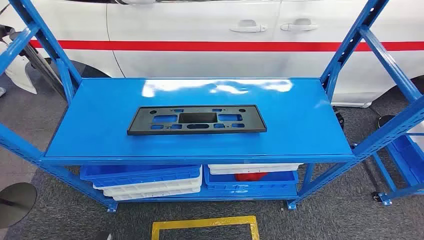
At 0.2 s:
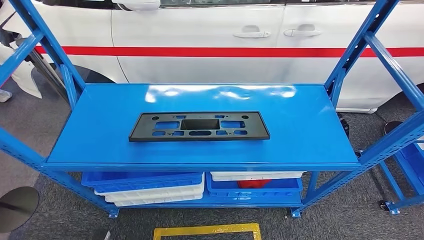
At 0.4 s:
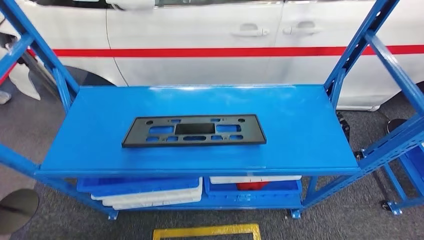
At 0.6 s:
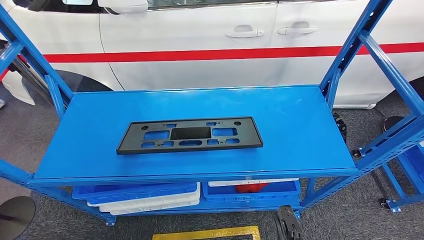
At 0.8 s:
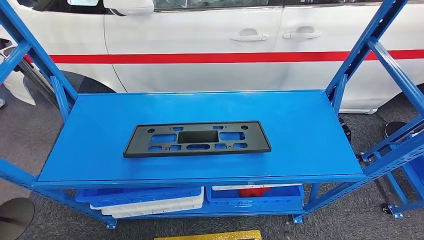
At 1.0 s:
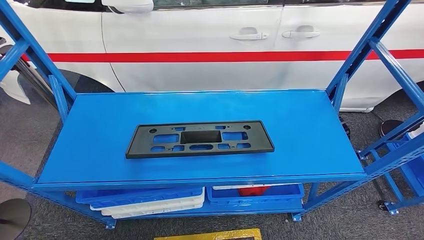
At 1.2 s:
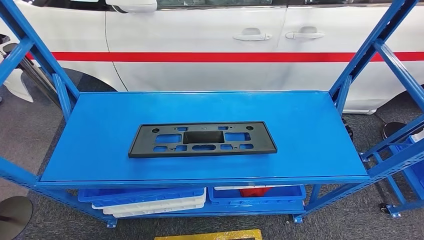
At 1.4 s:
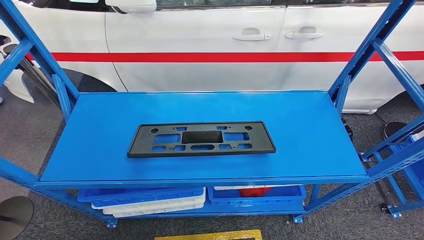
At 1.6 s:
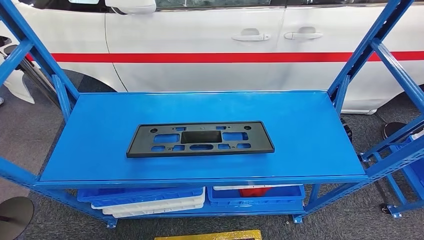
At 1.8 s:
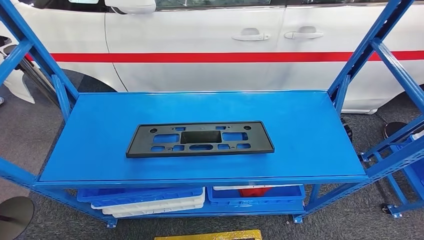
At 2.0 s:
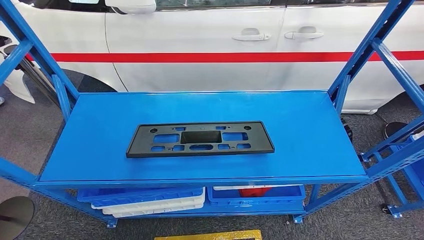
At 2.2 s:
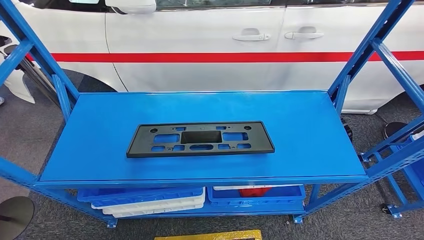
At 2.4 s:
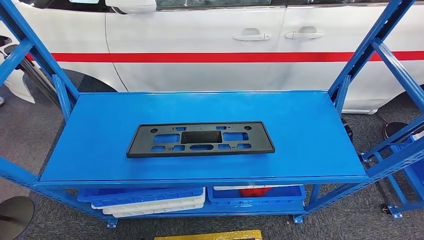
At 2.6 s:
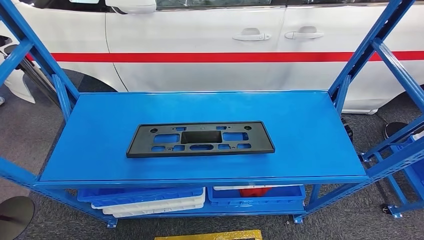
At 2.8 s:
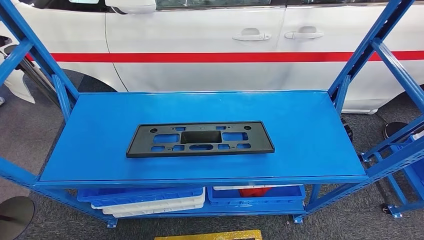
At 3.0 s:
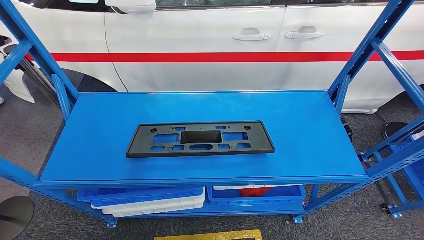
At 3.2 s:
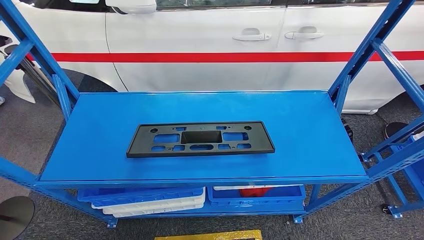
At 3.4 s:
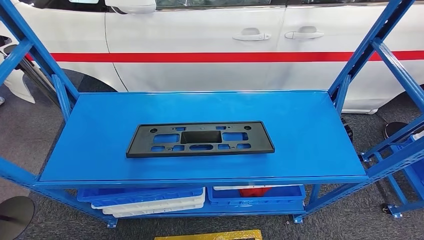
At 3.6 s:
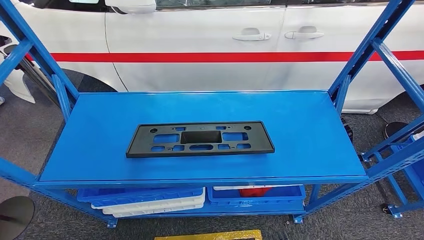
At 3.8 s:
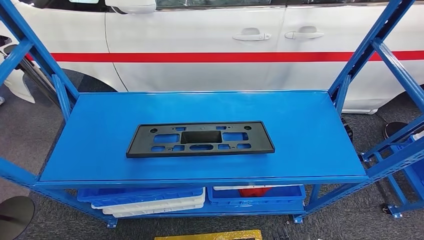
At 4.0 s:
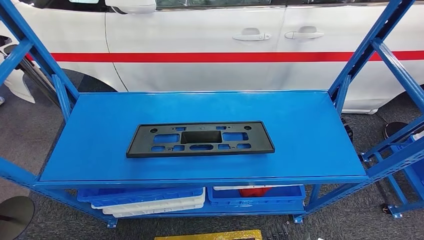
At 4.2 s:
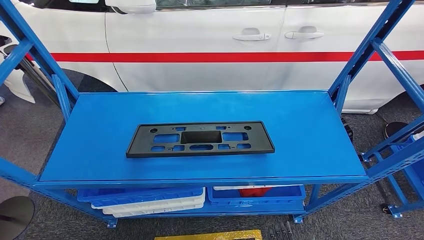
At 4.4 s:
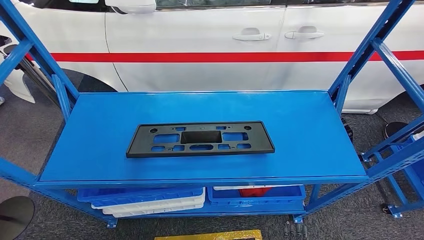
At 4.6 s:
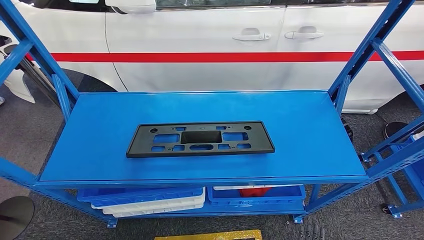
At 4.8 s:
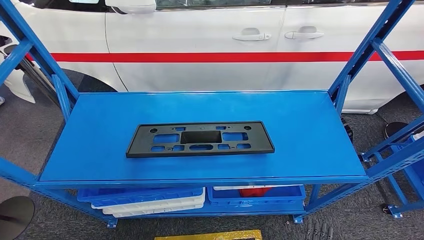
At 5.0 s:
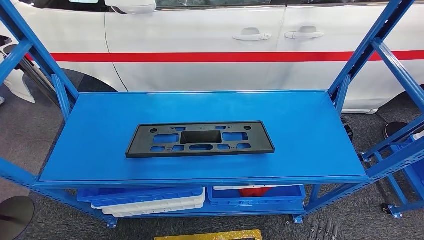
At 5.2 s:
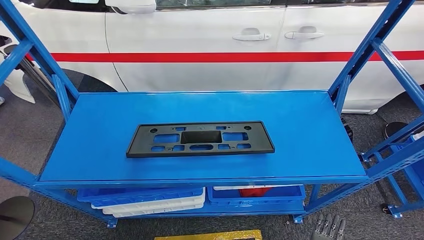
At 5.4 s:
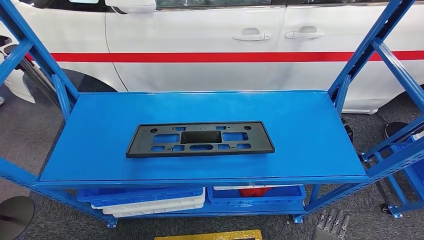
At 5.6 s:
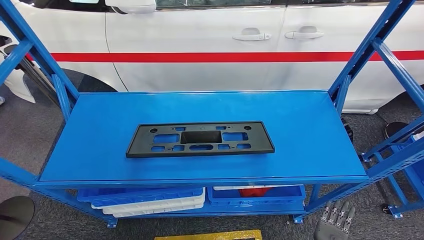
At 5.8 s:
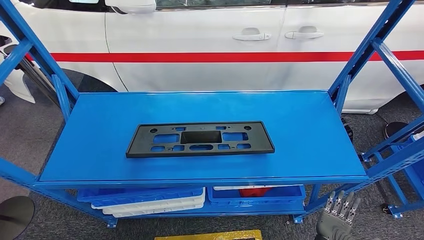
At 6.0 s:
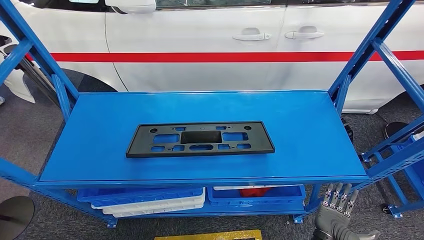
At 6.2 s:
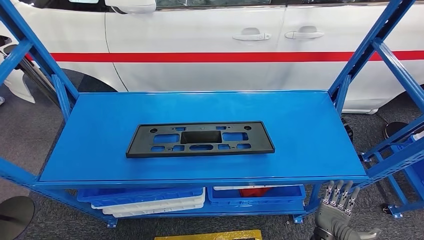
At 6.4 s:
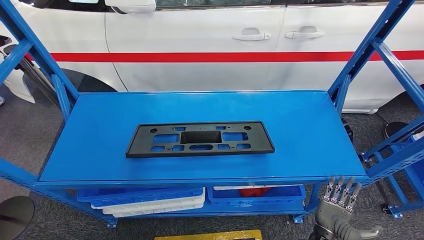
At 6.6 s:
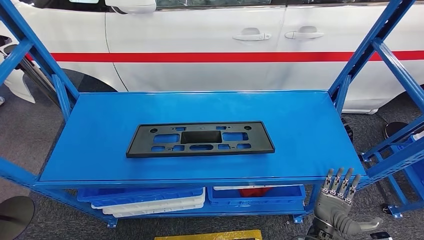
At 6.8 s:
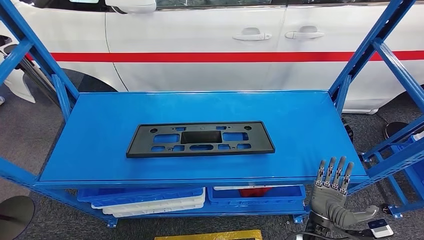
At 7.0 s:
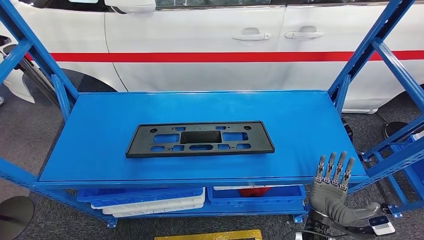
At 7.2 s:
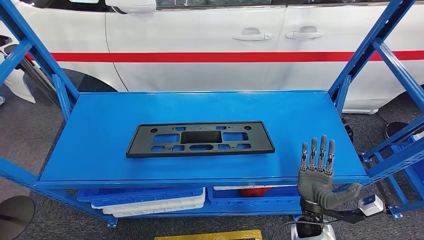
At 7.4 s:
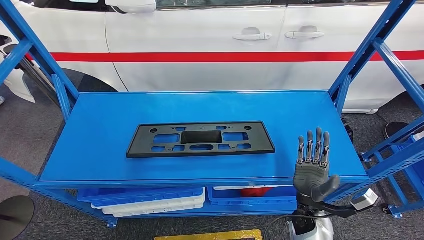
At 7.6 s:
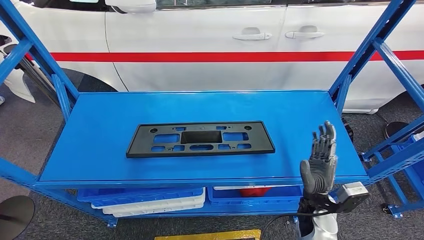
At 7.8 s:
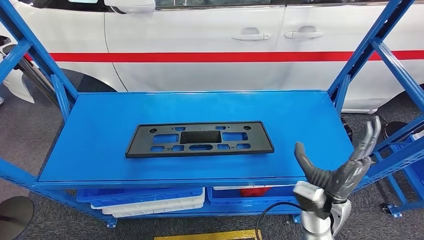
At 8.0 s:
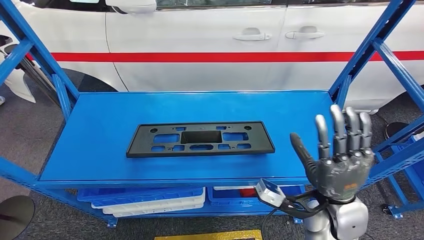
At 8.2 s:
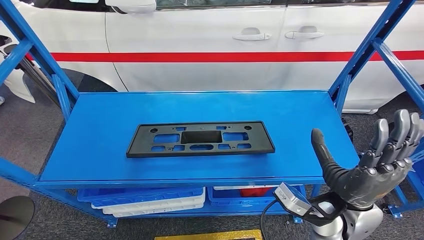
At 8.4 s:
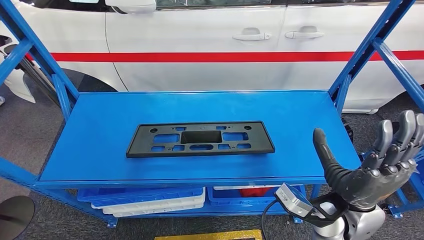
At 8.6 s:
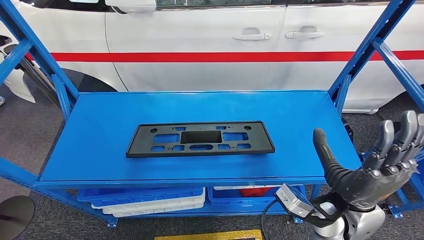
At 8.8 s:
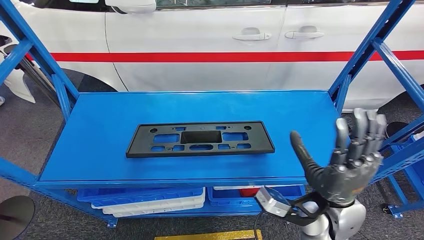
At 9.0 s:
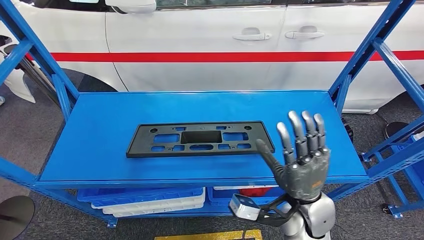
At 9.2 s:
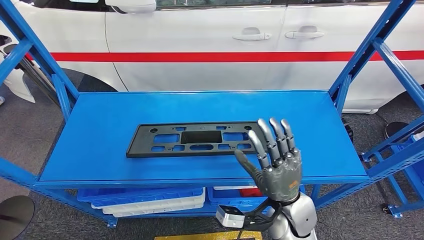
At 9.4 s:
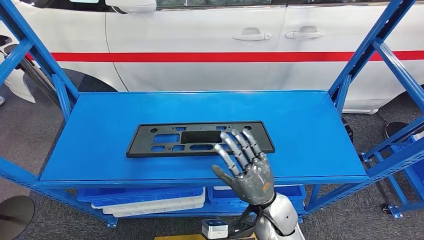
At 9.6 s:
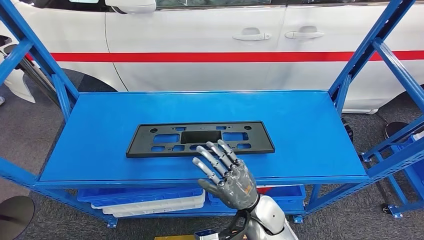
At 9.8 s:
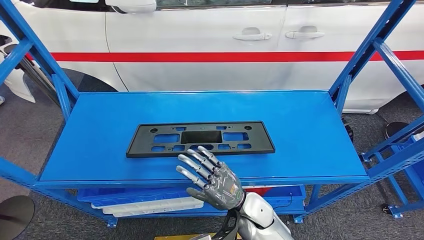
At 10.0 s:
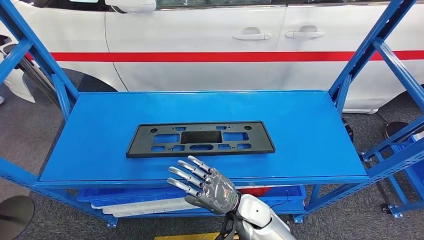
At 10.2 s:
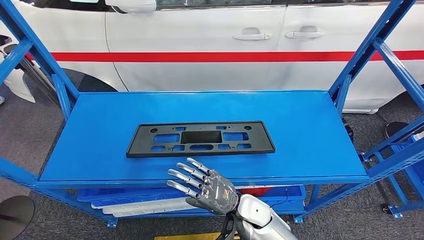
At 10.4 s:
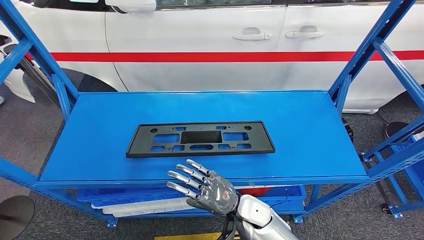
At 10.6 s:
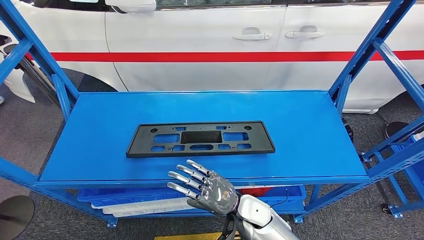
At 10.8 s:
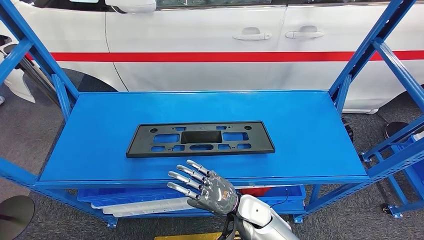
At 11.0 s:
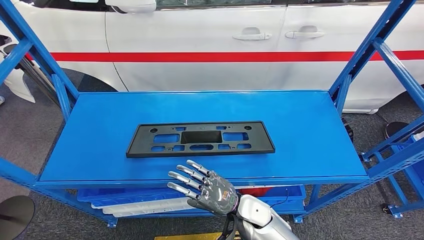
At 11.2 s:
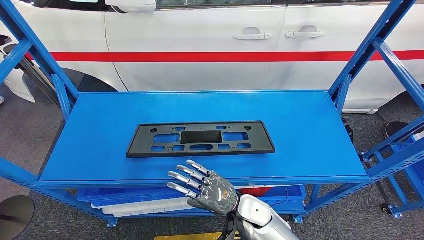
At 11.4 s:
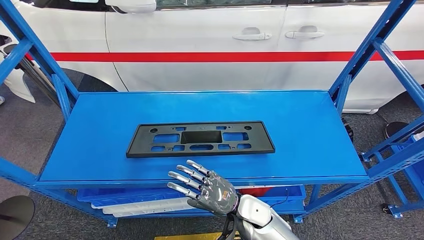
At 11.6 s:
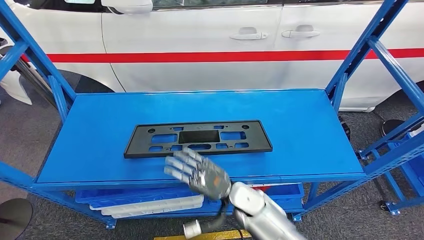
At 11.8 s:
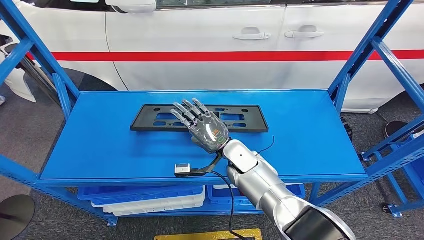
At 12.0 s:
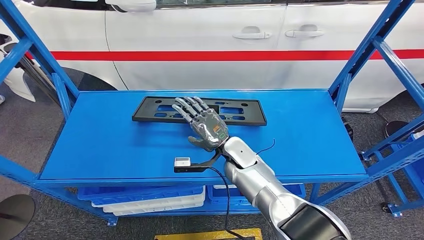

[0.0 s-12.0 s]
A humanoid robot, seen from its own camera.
1.6 to 3.0 s: The right hand changes place by some 5 cm.
4.4 to 6.0 s: The right hand heads forward and to the right, covering some 10 cm.
6.0 to 7.6 s: The right hand moves upward and forward, some 15 cm.
7.6 to 9.0 s: The right hand travels upward and to the left by some 15 cm.
9.0 to 10.4 s: The right hand travels downward and to the left by about 15 cm.
10.4 to 12.0 s: The right hand shifts approximately 15 cm forward and upward.

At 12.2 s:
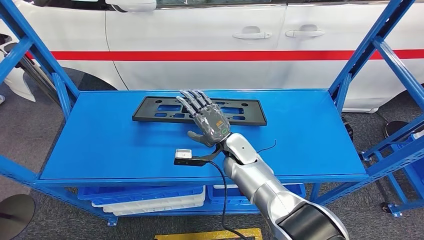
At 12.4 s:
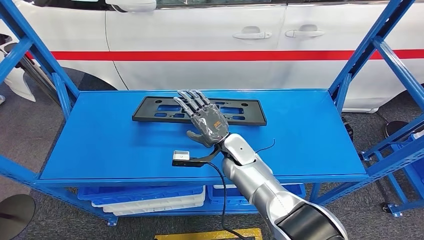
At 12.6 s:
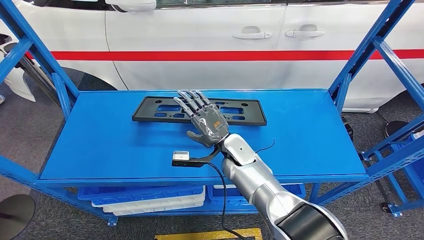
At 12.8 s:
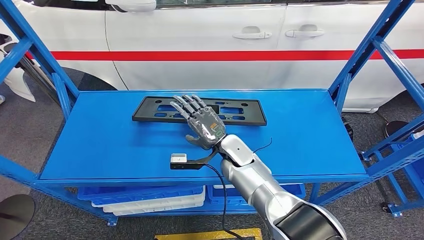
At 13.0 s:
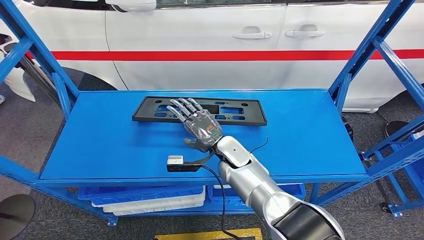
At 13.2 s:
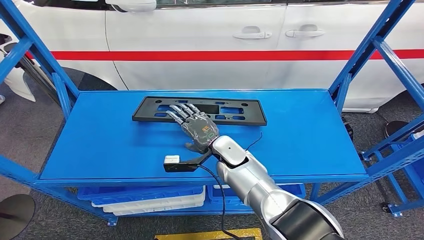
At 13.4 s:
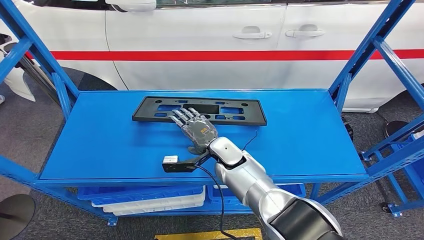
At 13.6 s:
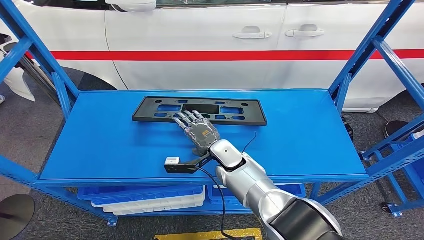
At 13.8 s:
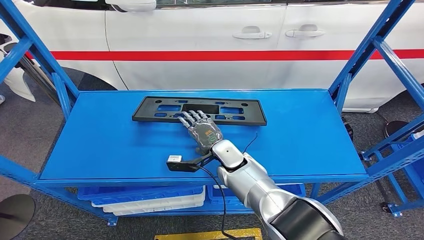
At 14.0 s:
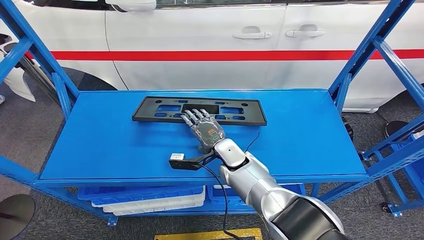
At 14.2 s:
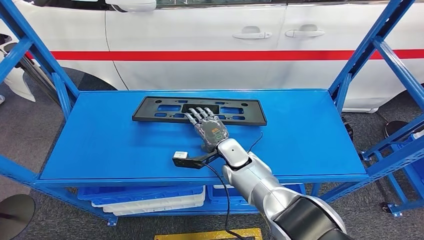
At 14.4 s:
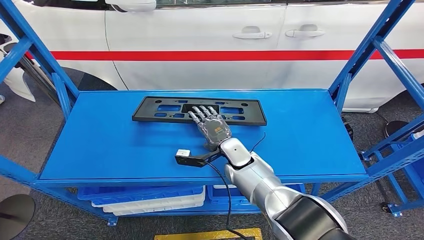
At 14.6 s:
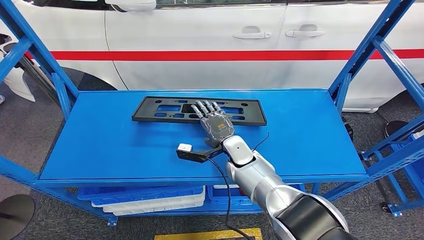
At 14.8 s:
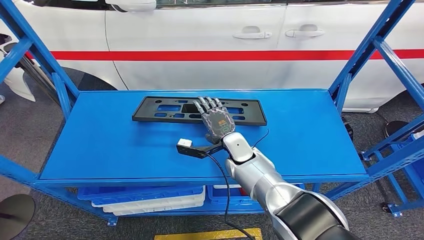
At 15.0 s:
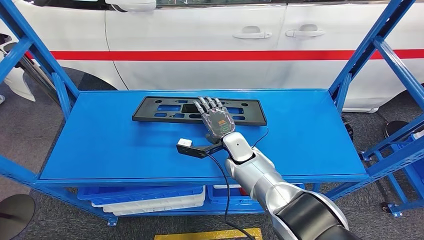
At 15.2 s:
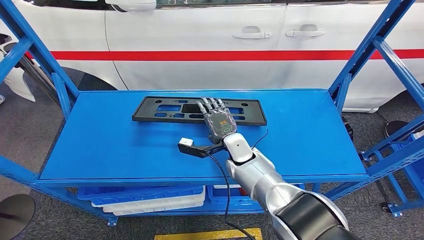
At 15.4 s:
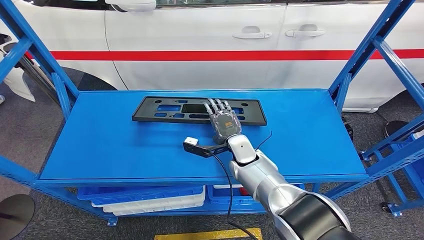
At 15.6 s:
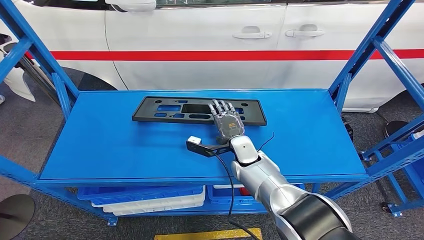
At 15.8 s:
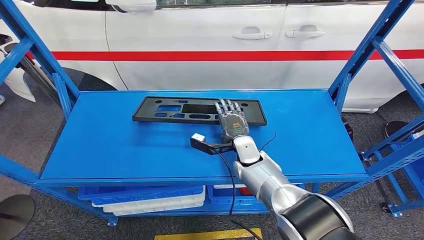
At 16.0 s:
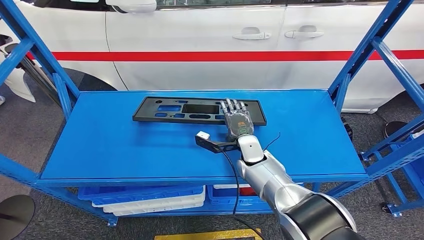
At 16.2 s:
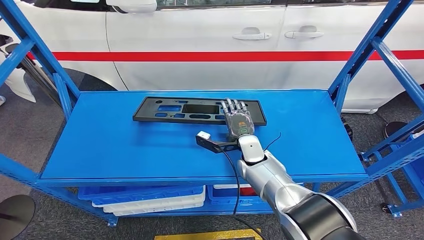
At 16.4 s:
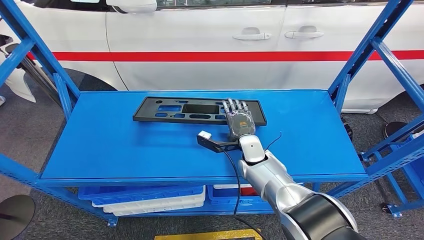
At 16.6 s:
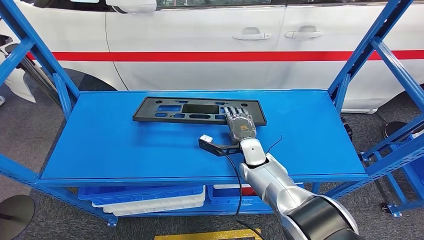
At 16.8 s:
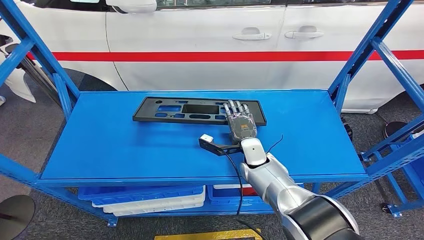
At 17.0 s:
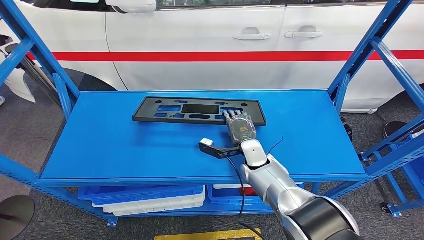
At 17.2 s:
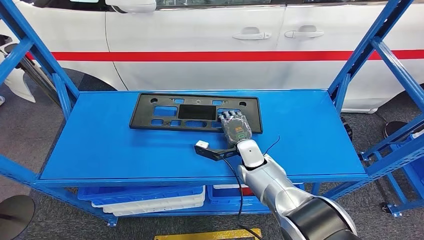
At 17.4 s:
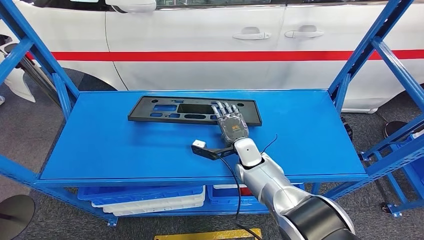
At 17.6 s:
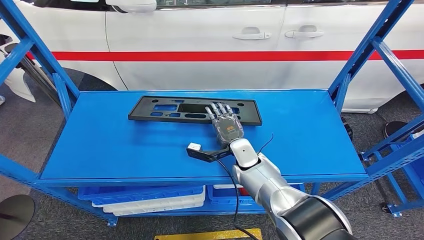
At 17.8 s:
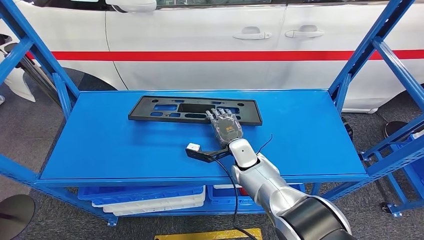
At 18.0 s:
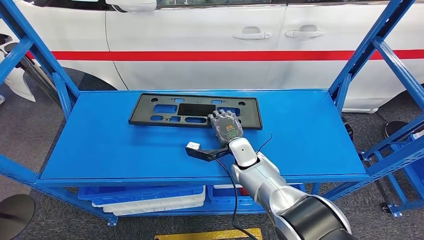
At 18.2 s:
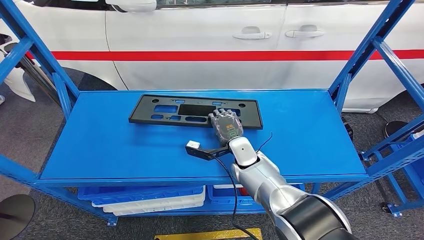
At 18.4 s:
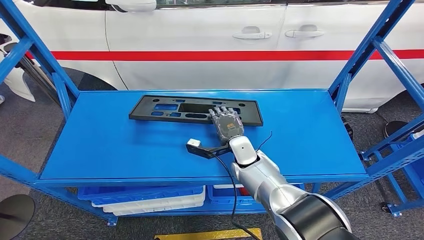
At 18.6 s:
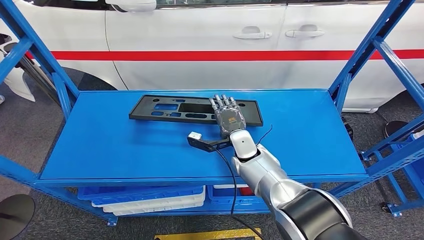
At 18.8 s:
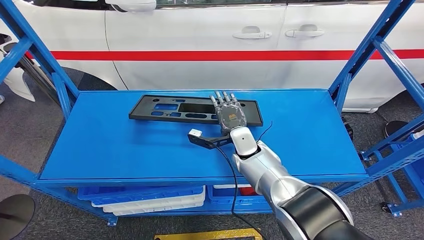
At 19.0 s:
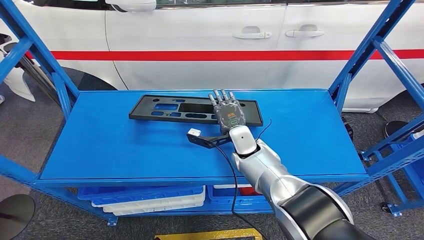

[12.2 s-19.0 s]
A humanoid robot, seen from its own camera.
Step, 12.2 to 17.4 s: Pick up the large material from the shelf.
13.6 to 15.0 s: There are only small adjustments of the hands.
15.0 to 19.0 s: There are only small adjustments of the hands.
